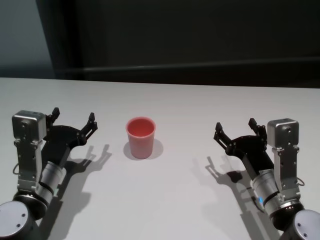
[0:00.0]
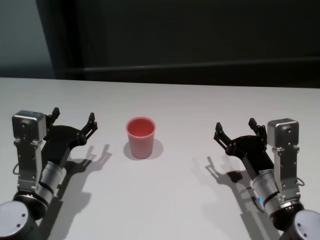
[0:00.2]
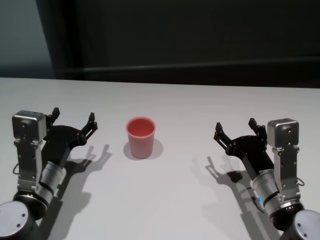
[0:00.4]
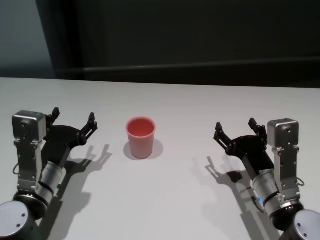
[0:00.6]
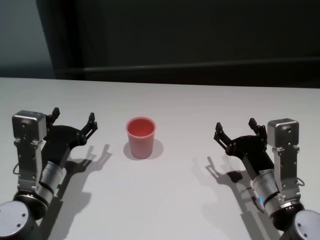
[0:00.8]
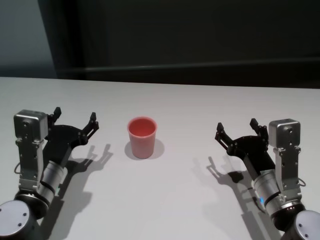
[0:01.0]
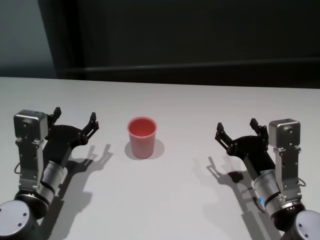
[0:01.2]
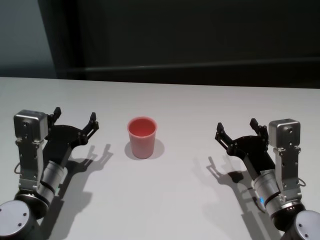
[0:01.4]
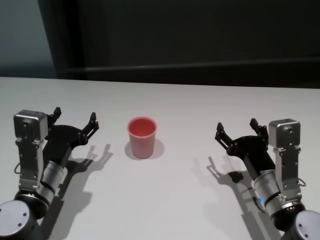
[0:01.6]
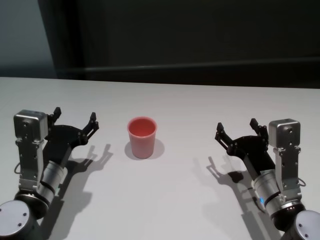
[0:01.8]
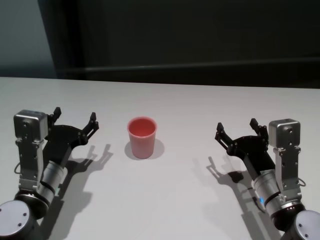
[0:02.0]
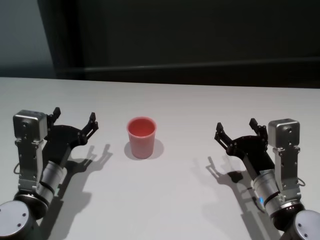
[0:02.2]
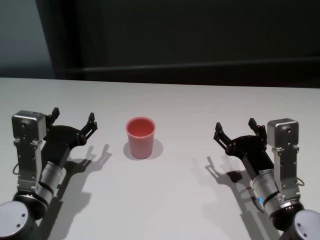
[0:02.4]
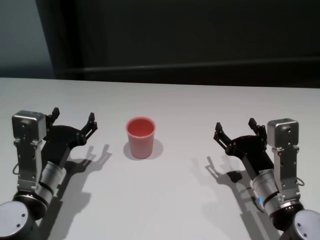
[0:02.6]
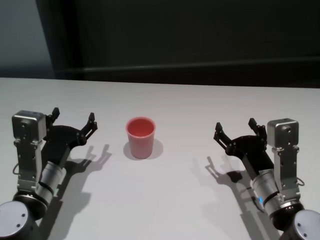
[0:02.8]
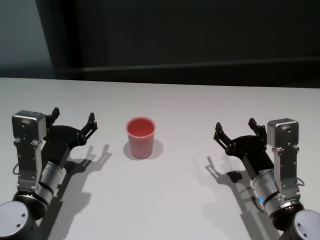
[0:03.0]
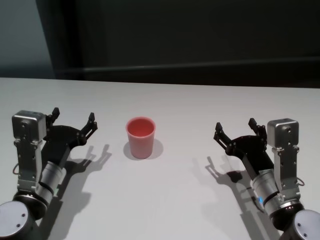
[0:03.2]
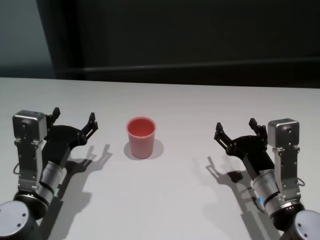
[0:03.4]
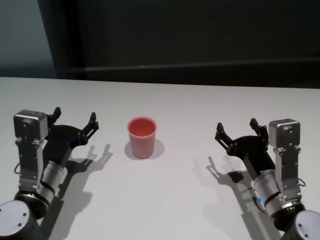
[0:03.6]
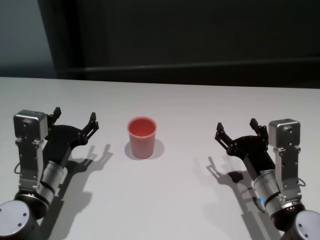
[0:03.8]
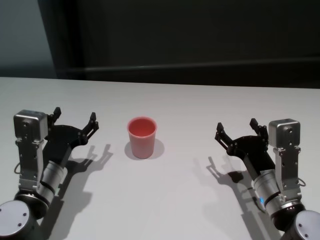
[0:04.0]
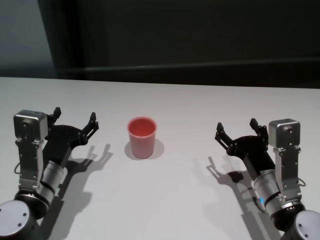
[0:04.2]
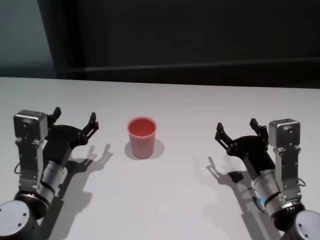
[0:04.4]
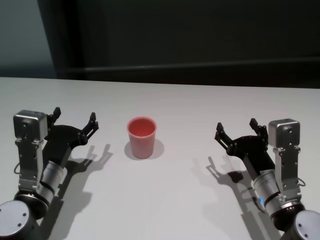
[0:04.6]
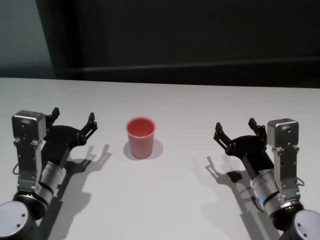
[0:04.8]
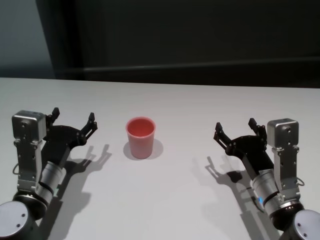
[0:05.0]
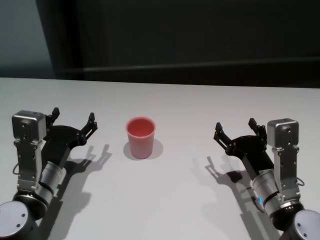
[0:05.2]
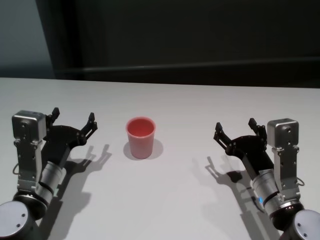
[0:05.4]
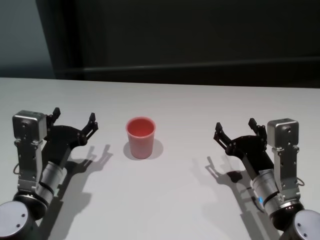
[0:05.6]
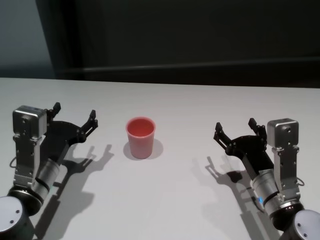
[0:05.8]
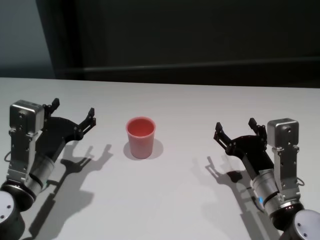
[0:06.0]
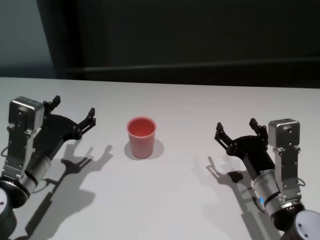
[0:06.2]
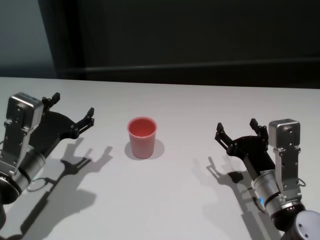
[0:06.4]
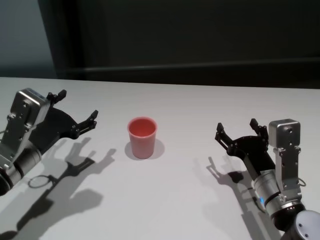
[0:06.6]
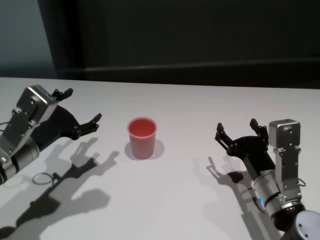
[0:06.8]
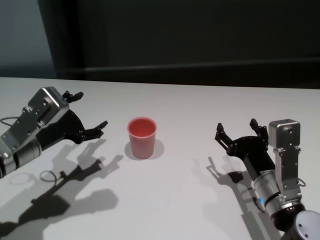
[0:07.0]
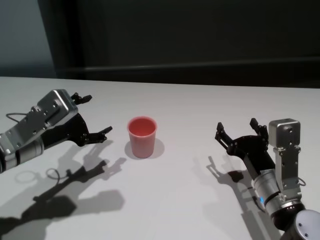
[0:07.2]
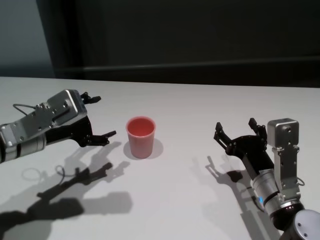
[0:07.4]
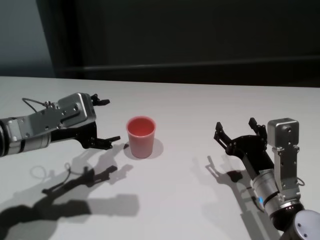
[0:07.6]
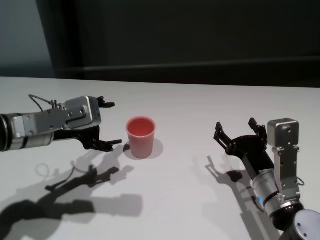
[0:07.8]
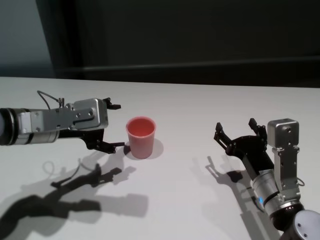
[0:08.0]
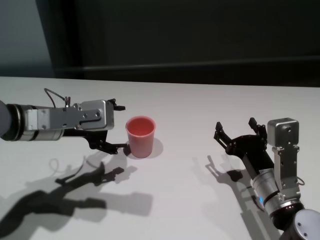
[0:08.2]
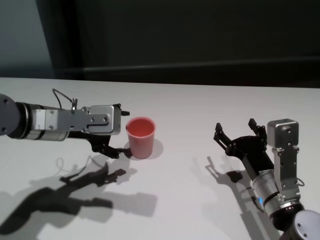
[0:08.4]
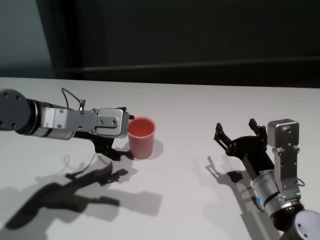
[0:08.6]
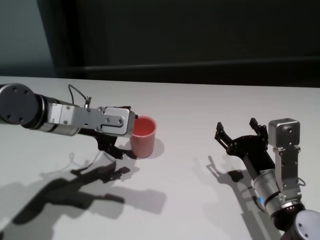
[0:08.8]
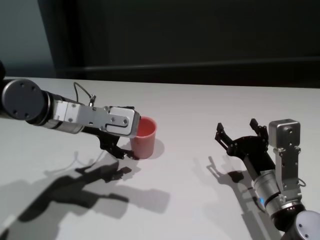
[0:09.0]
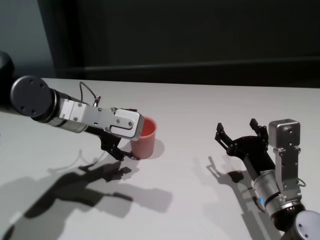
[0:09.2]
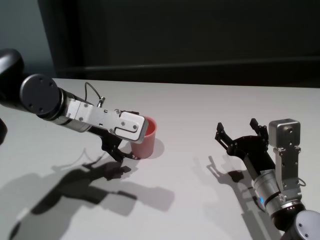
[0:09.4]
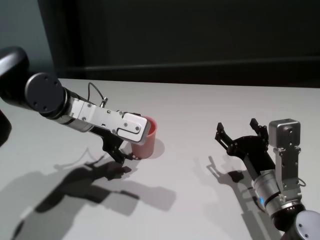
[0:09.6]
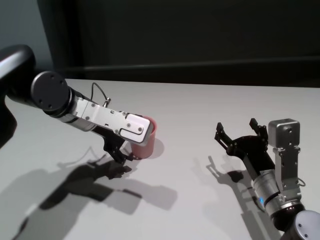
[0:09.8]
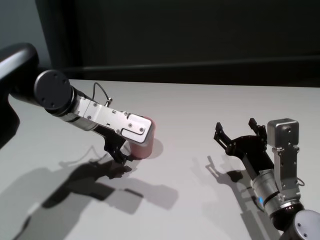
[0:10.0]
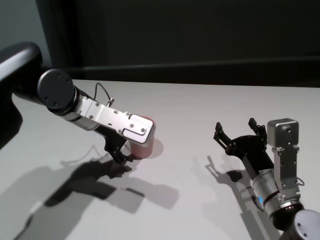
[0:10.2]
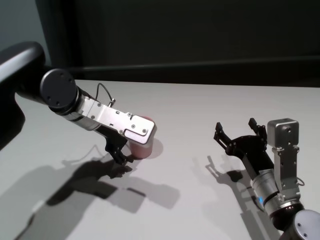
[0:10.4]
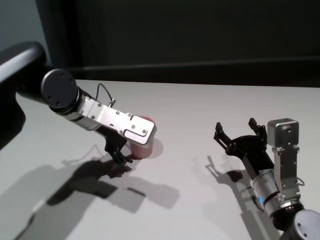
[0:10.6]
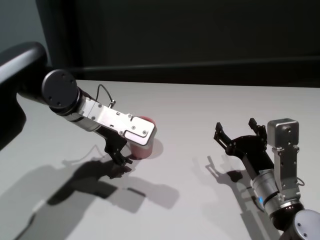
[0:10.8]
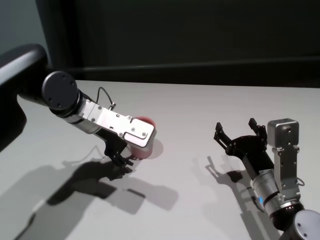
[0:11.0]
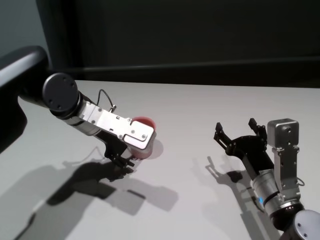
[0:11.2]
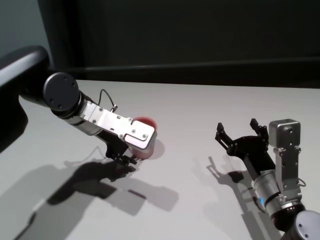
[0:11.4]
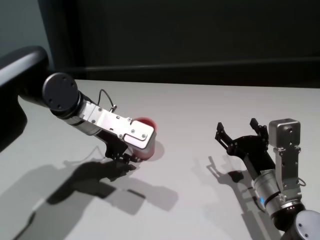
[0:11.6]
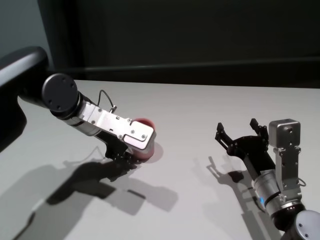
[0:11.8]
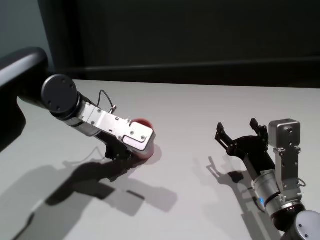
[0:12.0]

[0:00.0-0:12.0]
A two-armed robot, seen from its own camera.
Task of the whole recording: On the white table pick up the cup with one hand and transfer it to the other hand before turning it over.
Step, 0:00.0 to 0:12.0: Grasp the cup with left gripper.

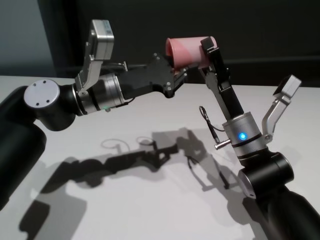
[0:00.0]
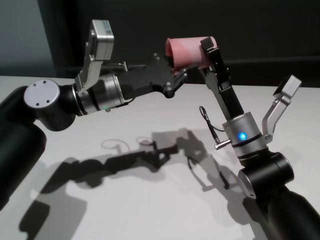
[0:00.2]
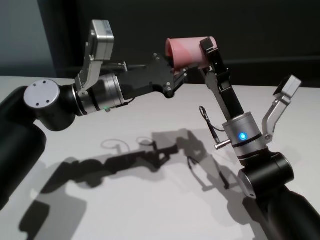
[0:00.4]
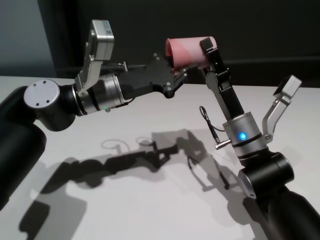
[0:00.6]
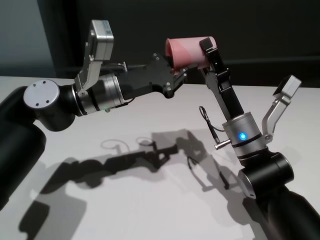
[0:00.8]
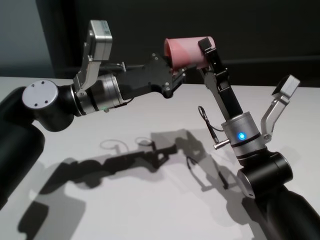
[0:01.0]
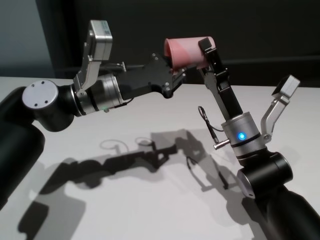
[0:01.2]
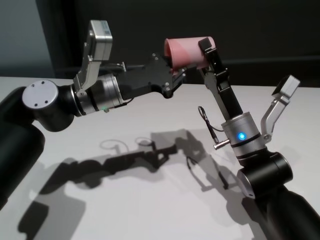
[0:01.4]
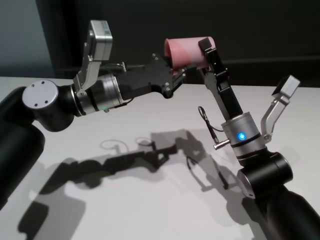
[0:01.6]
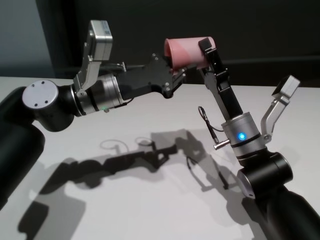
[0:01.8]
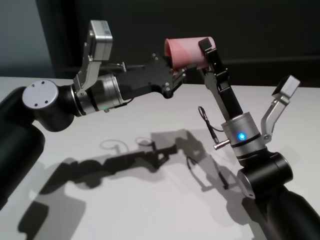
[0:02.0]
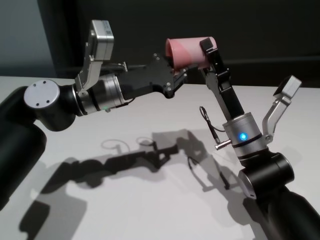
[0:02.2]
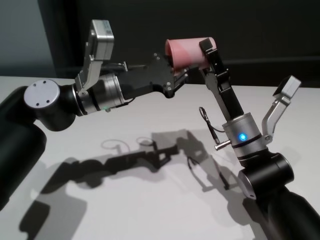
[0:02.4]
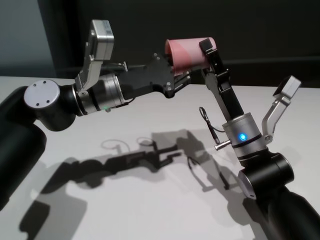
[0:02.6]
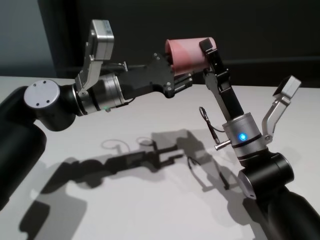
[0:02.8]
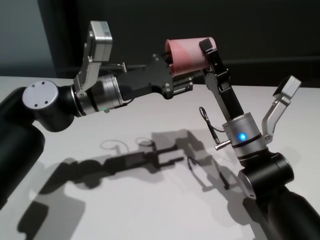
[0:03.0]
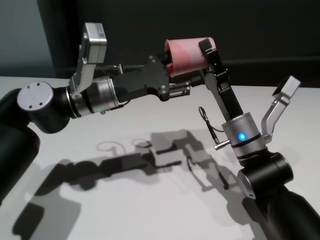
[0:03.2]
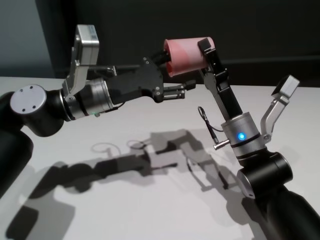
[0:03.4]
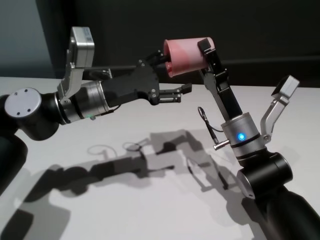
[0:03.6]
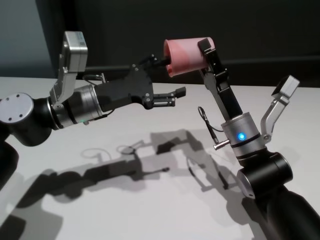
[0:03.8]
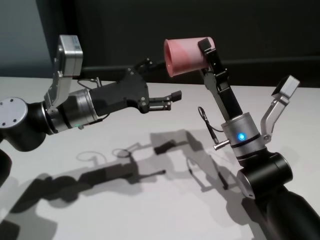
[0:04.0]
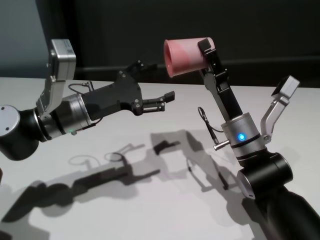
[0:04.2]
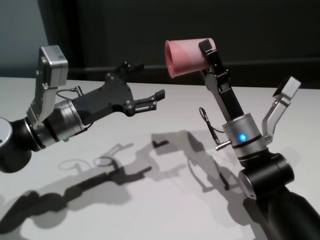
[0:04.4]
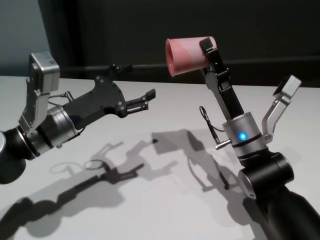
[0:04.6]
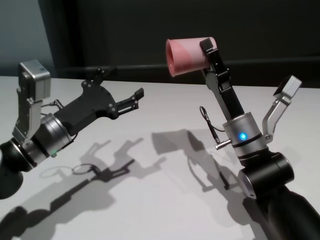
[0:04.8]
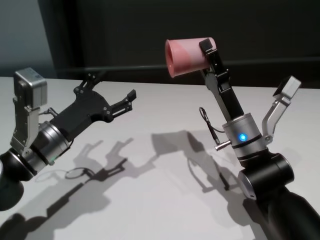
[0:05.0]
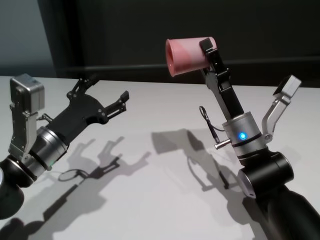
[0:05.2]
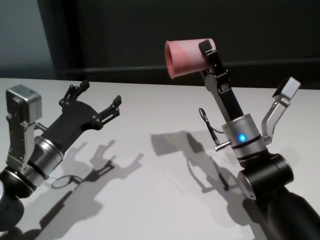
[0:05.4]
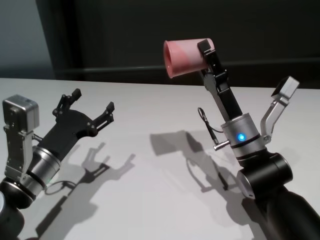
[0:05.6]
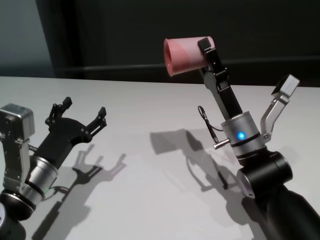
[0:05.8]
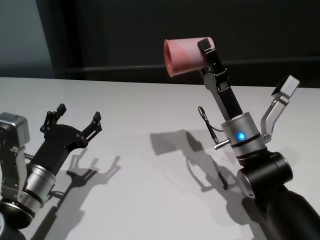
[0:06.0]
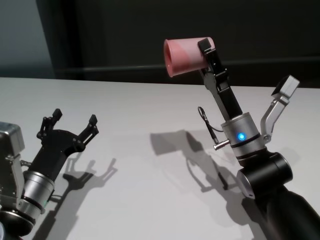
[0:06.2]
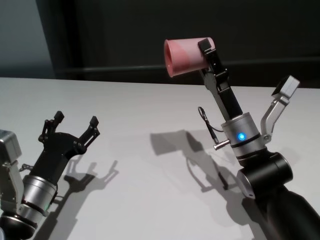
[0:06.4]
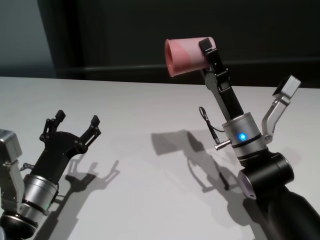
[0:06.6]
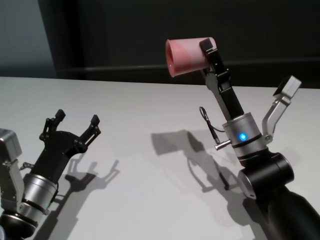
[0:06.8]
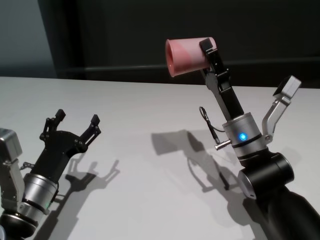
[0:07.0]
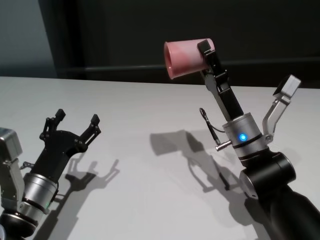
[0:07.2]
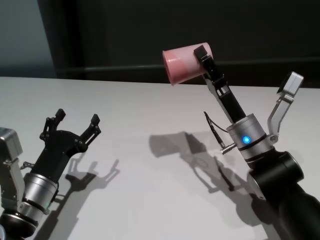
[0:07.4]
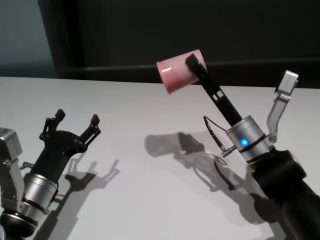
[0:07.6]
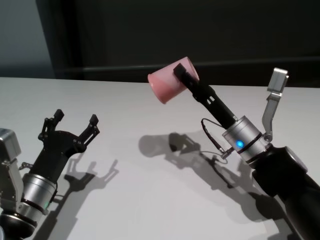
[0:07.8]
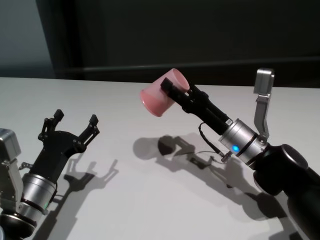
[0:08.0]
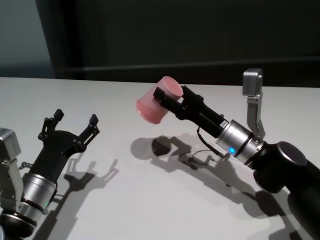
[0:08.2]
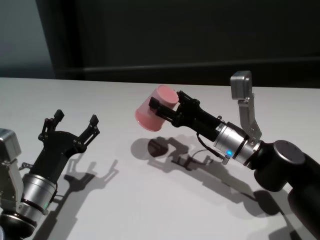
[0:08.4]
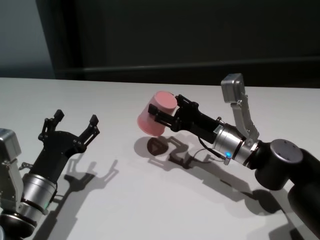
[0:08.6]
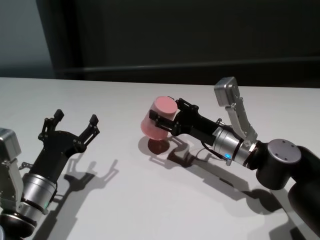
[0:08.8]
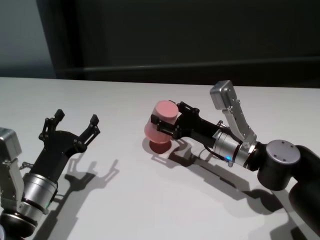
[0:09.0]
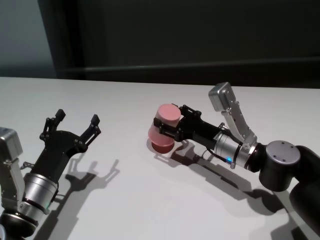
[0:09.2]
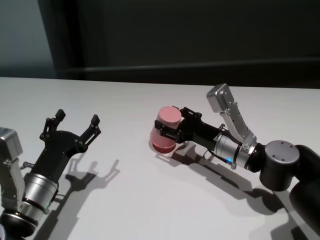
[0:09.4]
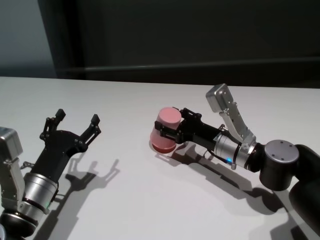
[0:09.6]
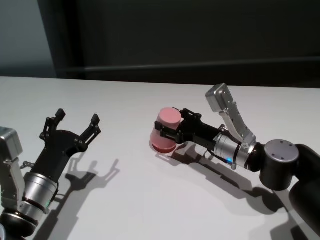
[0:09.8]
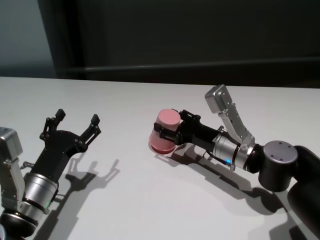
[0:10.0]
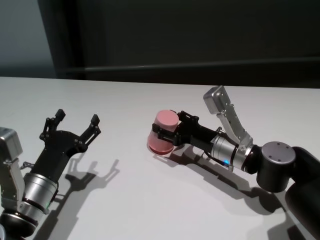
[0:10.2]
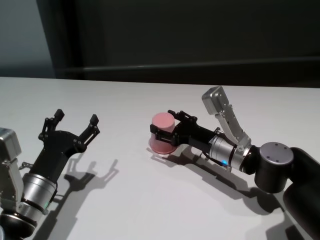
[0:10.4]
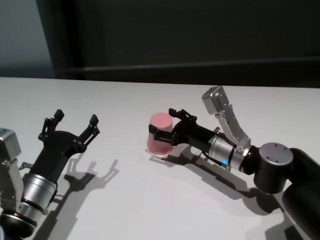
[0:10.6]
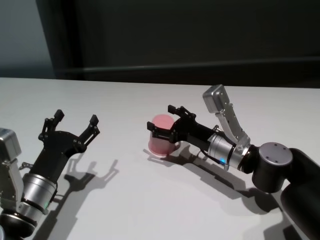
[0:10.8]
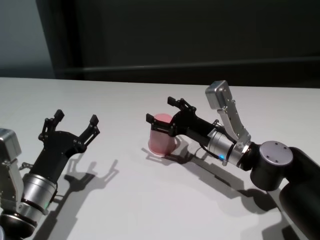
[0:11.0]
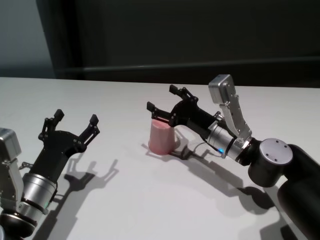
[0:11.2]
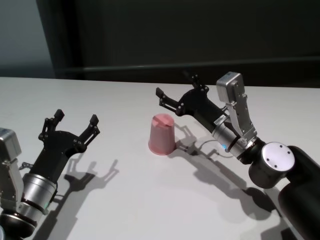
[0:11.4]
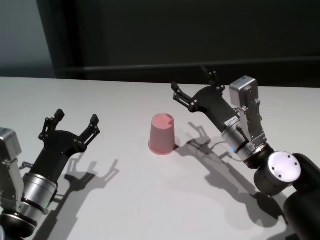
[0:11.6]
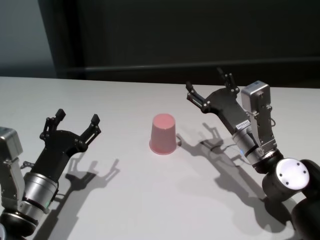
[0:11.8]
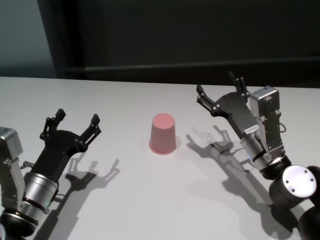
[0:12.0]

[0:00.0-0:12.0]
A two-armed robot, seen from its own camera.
Task of the whole recording: On the white table pick up the cup with one hand and transfer it to the other hand before turning it over.
Step, 0:00.0 to 0:04.2: Pass the cup to the right gripper.
Step, 0:04.4 to 0:11.2: Place the cup on the table with right gripper.
